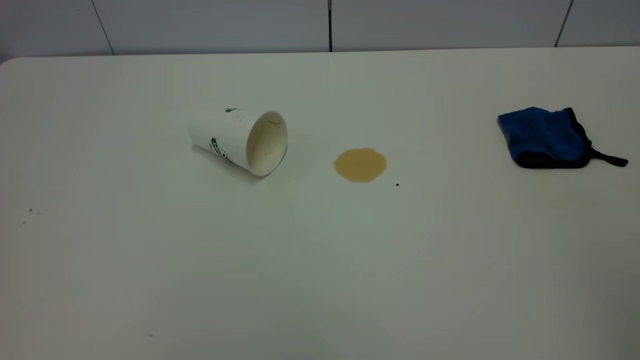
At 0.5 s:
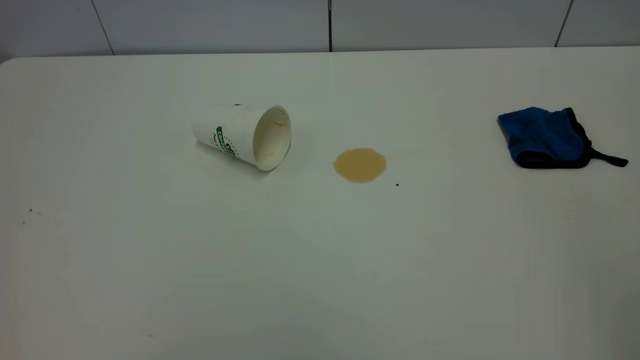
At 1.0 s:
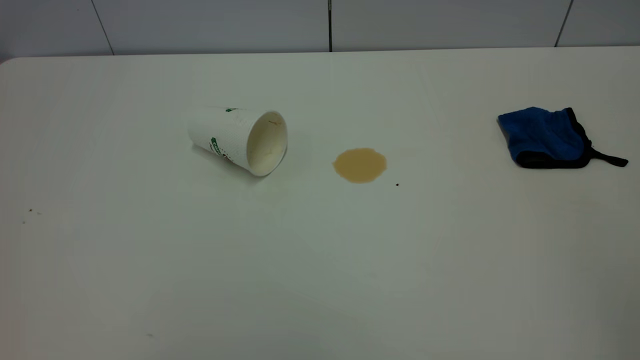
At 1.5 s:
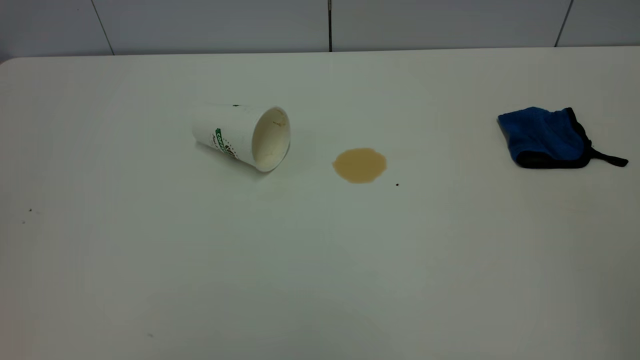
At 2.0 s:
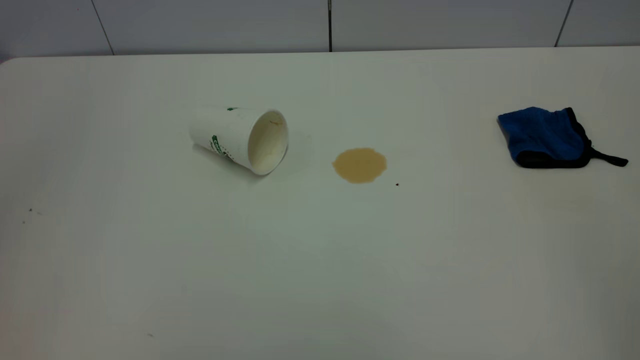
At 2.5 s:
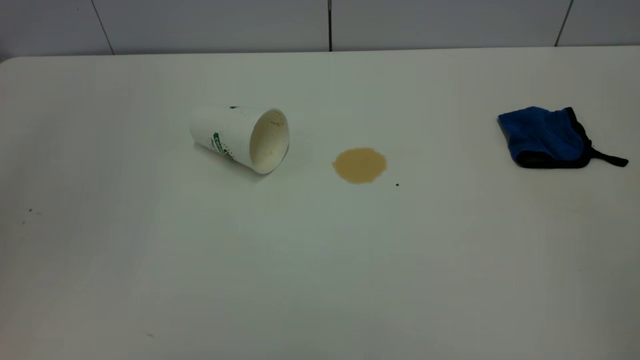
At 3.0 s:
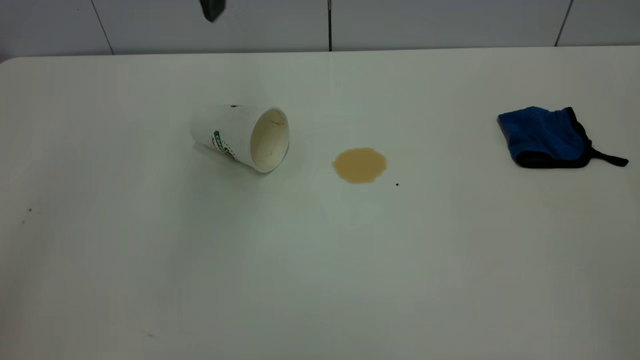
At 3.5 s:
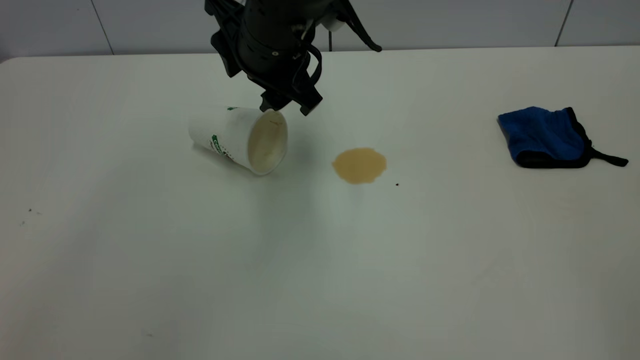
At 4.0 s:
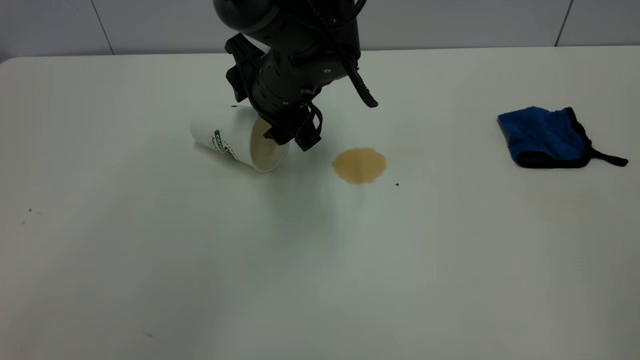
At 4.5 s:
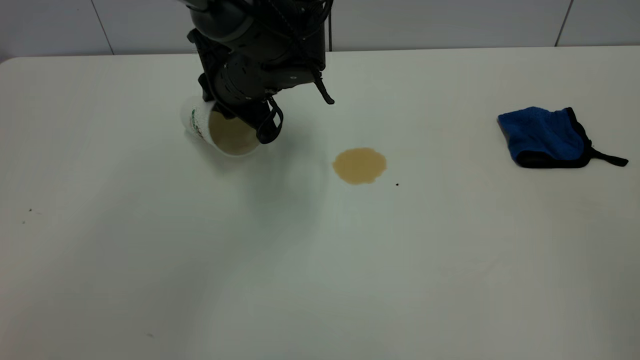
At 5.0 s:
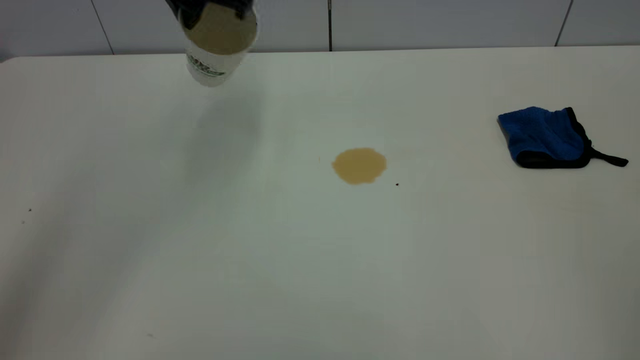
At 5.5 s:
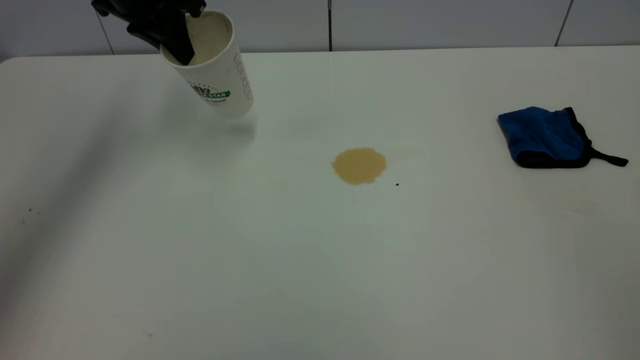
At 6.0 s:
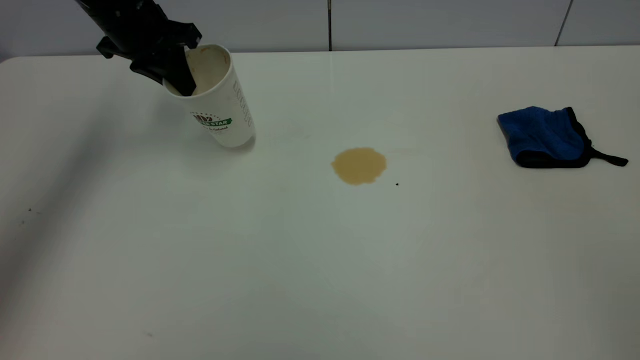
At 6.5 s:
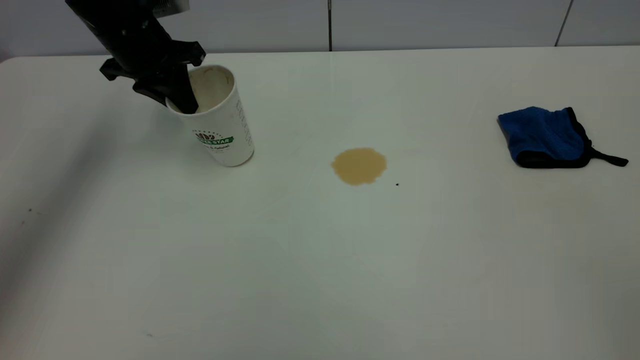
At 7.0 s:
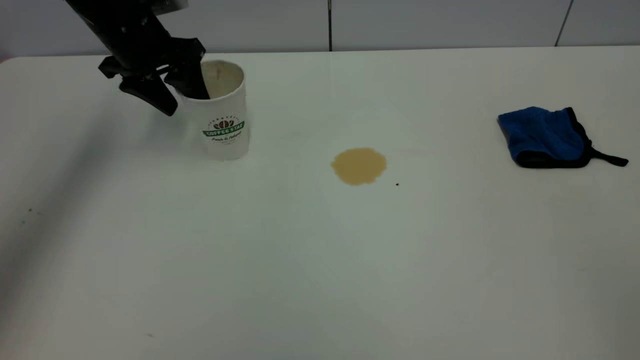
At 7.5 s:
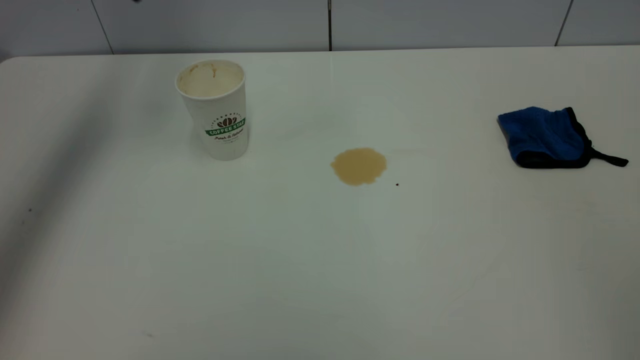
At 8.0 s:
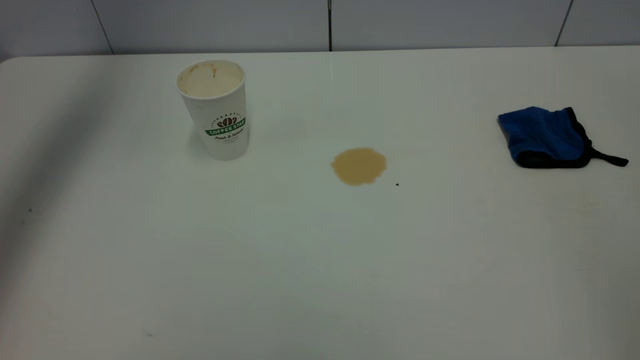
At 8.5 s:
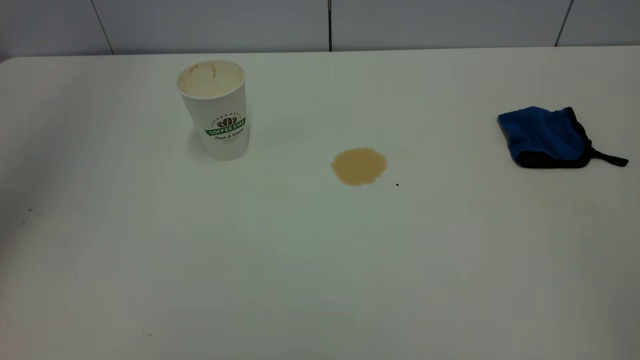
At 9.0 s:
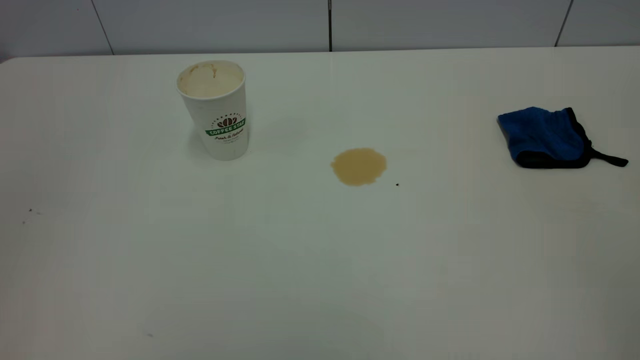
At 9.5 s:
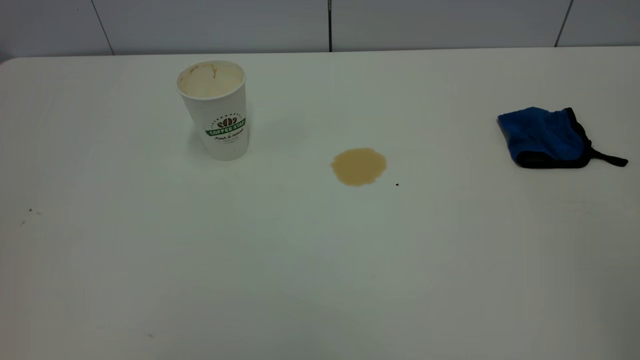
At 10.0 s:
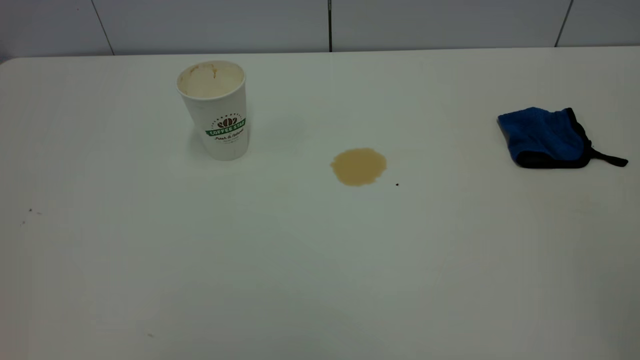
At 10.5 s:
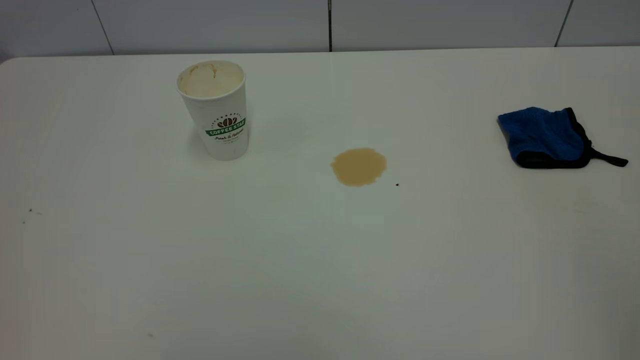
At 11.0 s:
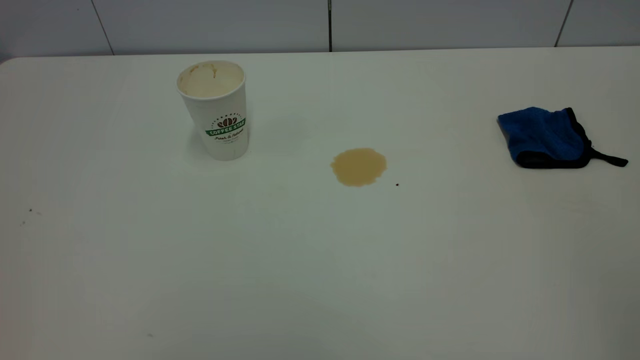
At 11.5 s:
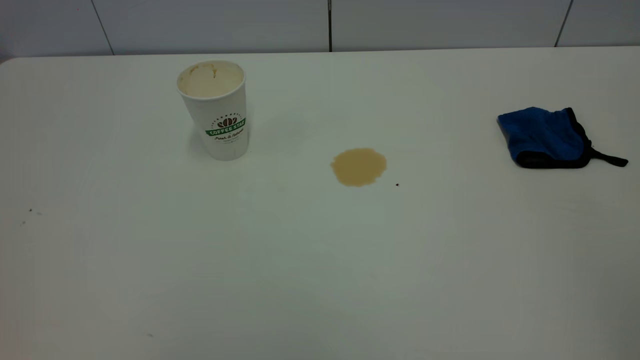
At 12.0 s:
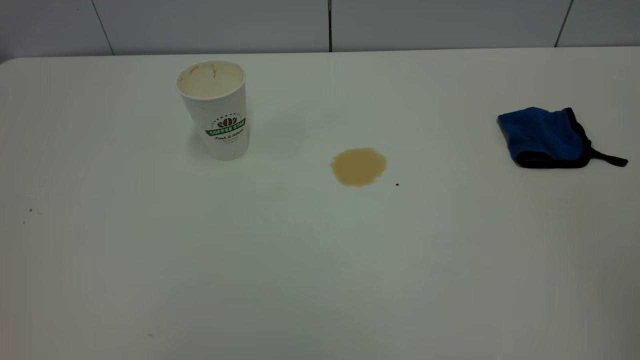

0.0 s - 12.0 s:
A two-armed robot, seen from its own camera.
Task of the whole recording: the left gripper pick up the fallen cup and place it upright, the right gripper grasp the blue rag and wipe the tea stain on the table, the right gripper put the blue rag back in its original position.
Step, 0.0 s - 7.0 s: Stand the paper cup upright.
2.0 s - 4.0 s: The left gripper moves downward, forward and to the right, approximately 50 cm.
4.0 s - 6.0 s: The left gripper is displaced to the left and forward by approximately 20 cm, and closes its fingers.
6.0 s - 8.0 s: The left gripper travels upward by some 25 cm, and opens.
8.0 s - 10.0 s: The left gripper moves backward, roughly 50 cm.

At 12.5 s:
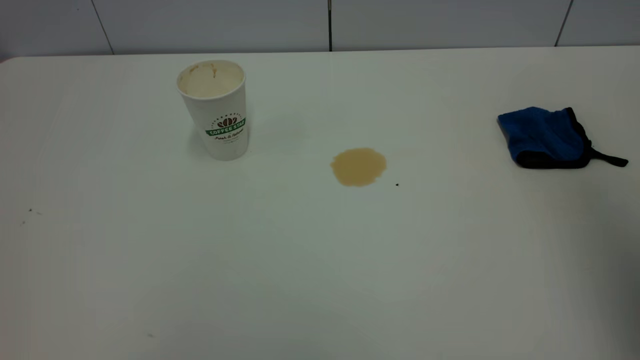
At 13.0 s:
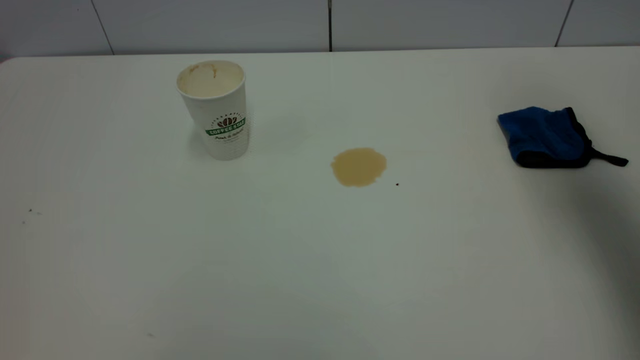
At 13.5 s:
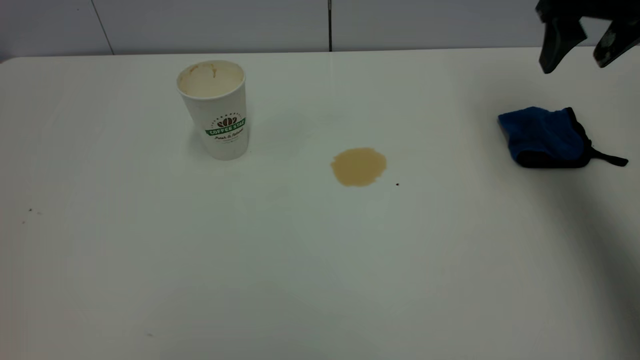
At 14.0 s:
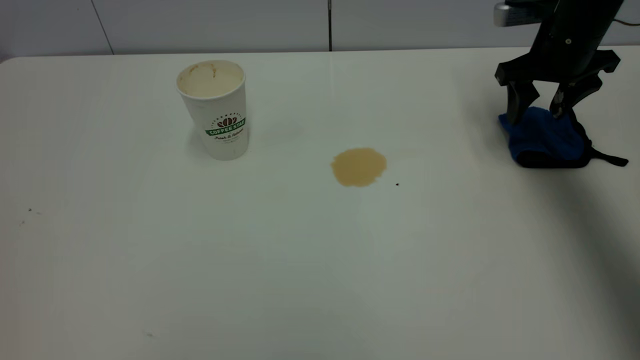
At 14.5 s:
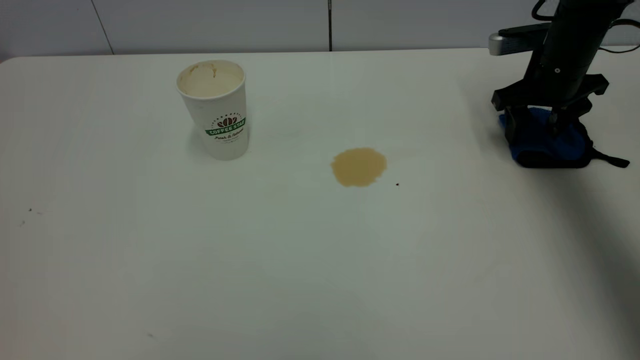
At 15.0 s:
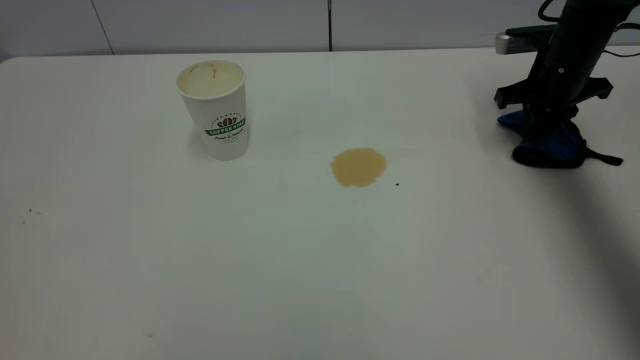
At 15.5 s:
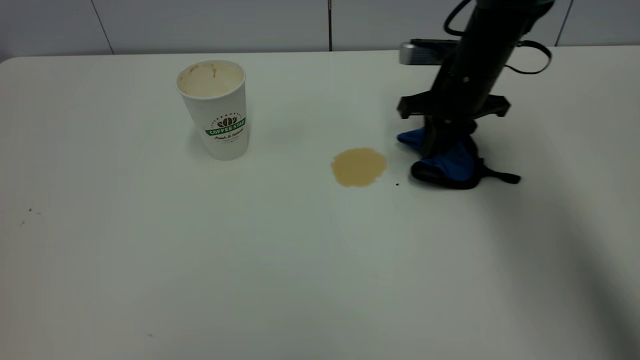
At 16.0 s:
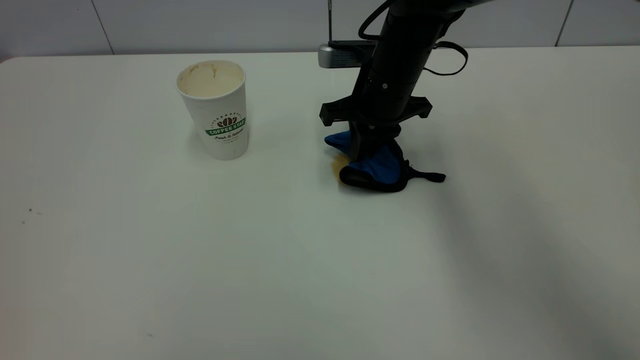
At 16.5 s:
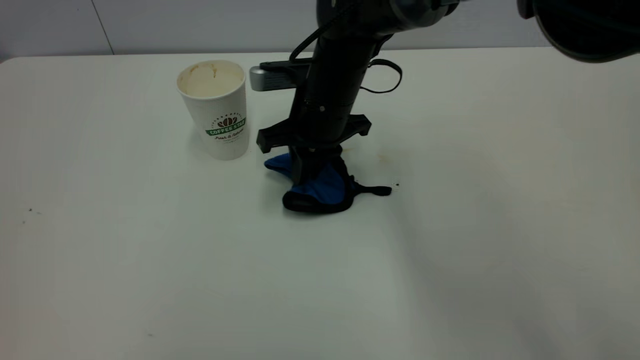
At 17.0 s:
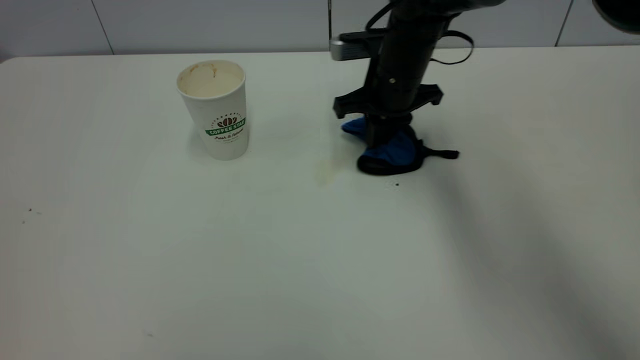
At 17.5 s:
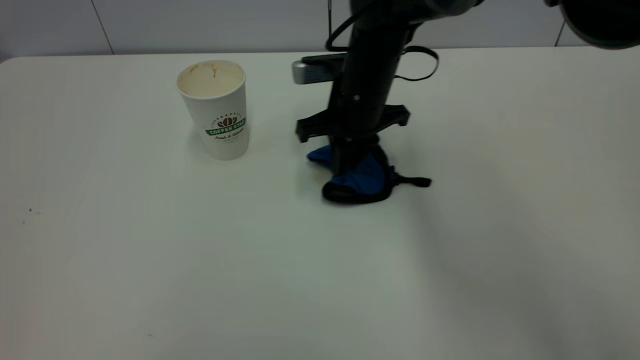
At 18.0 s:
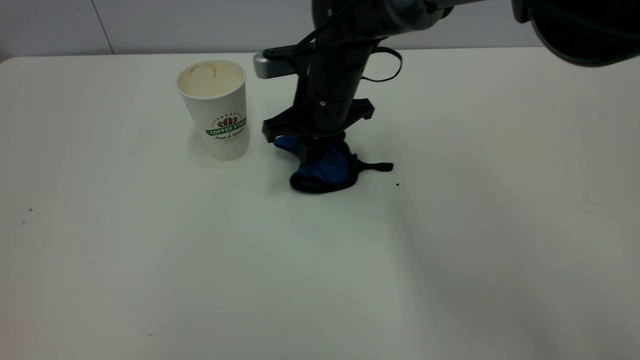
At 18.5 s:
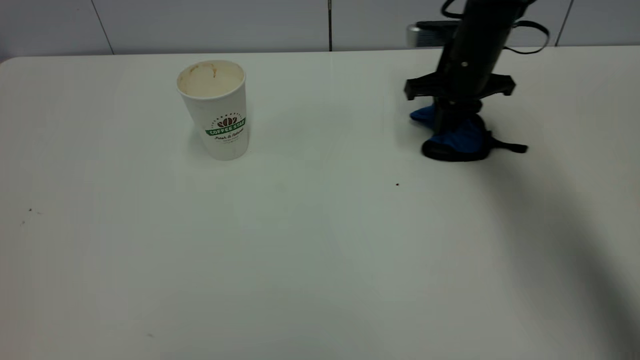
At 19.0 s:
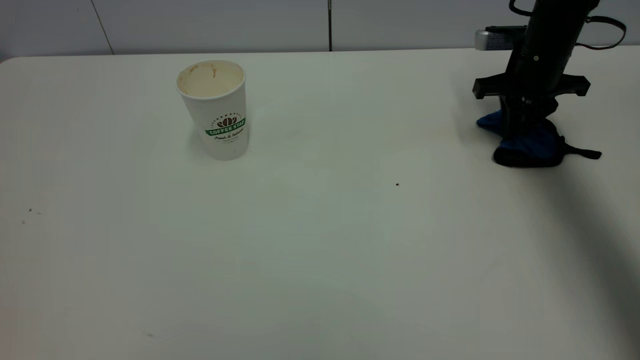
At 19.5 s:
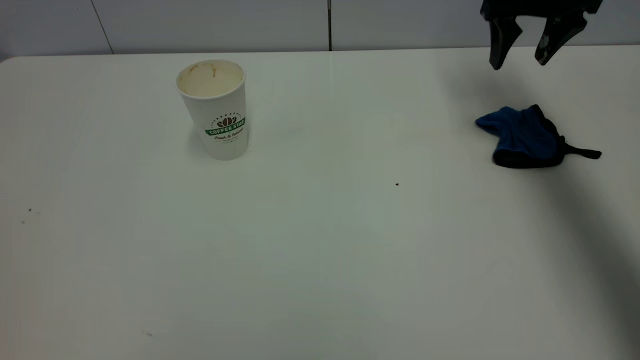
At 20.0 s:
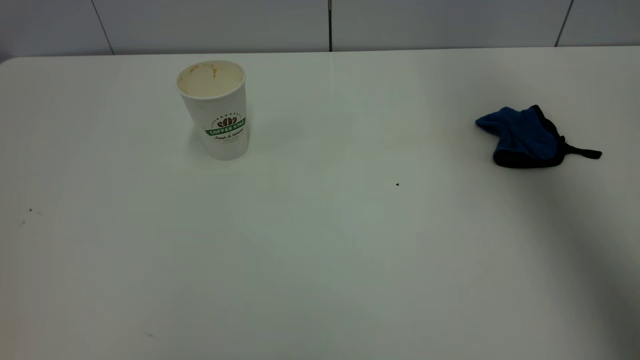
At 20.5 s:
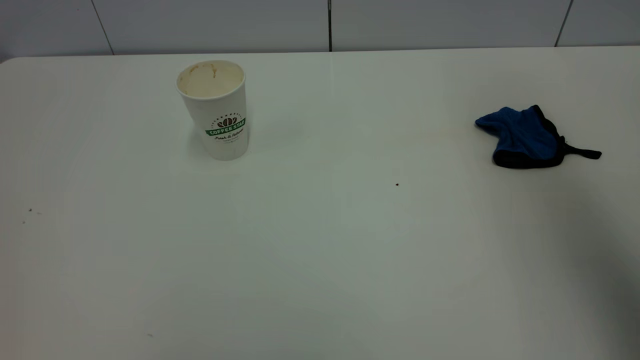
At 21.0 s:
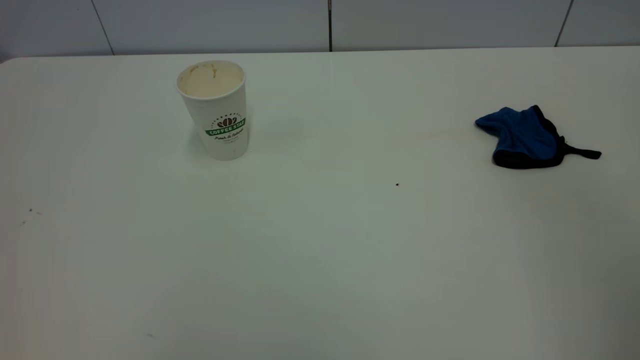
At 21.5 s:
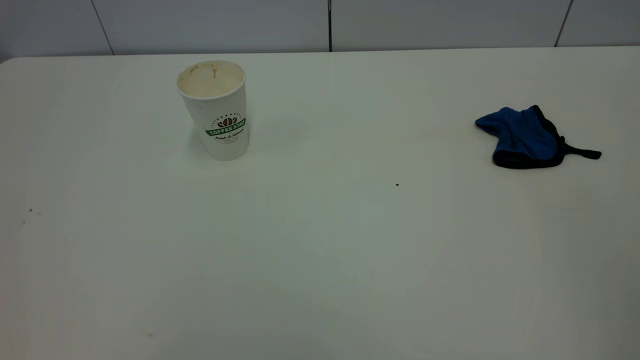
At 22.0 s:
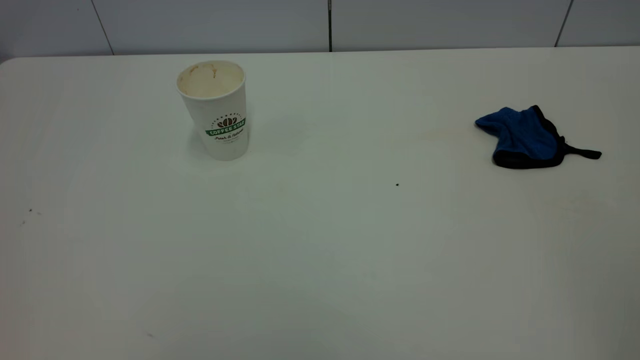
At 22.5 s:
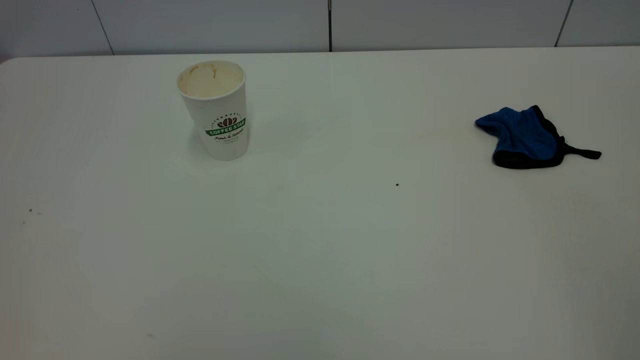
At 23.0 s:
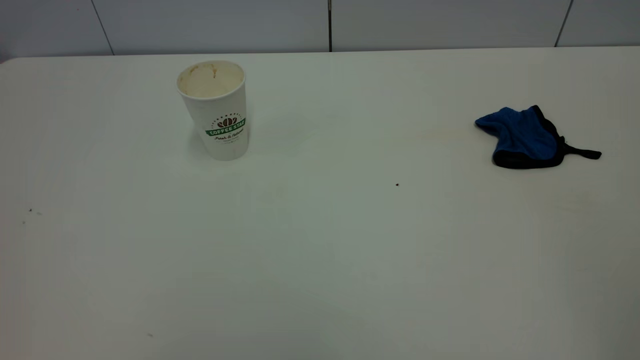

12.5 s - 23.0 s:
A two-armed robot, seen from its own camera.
Task of the whole recording: the left gripper pick up the fallen cup and place it upright, the right gripper grasp the blue rag and wipe the tea stain on the table, the right gripper put the blue rag back in its original position.
Step, 12.5 s - 19.0 s: Wipe the stains off the table with a rag.
12.5 s - 14.5 s: The right gripper shifts approximately 50 cm downward and forward.
14.5 s - 16.5 s: The right gripper heads to the left, covering roughly 30 cm, and closes.
16.5 s - 19.0 s: The right gripper moves left and right over some 25 cm, changing direction 2 times.
19.0 s - 21.0 s: The right gripper shifts about 50 cm backward and upward, and opens up.
